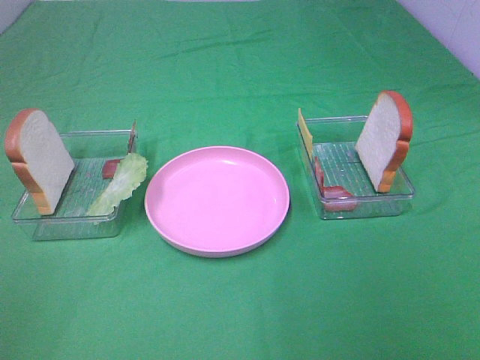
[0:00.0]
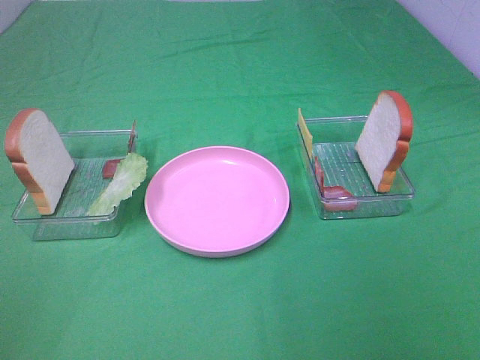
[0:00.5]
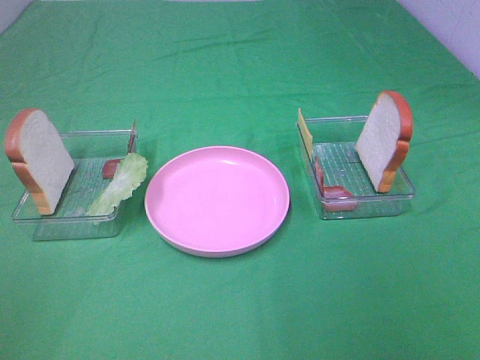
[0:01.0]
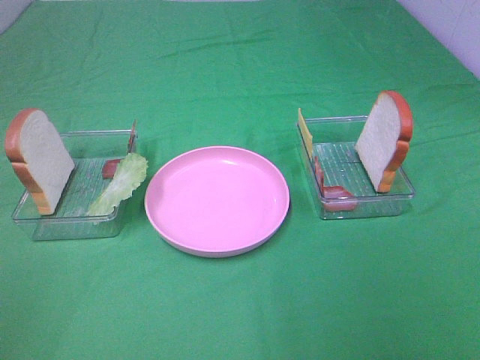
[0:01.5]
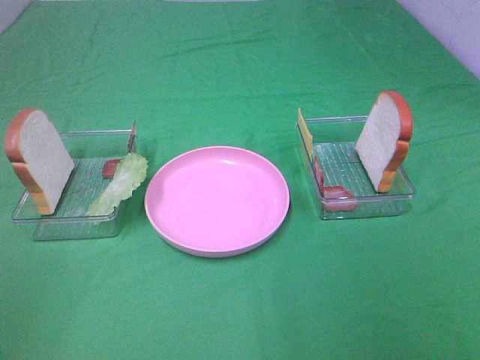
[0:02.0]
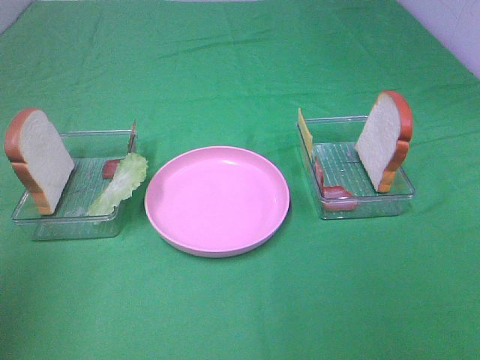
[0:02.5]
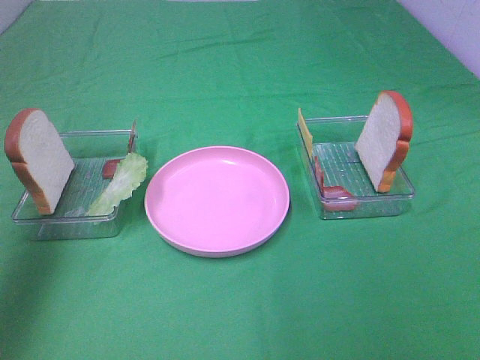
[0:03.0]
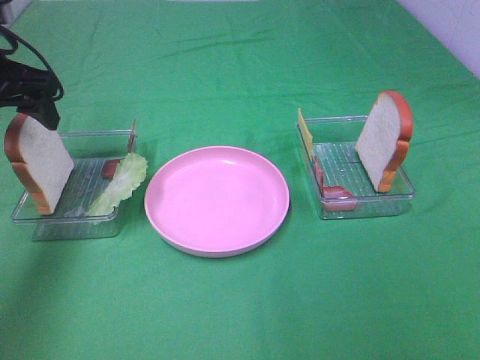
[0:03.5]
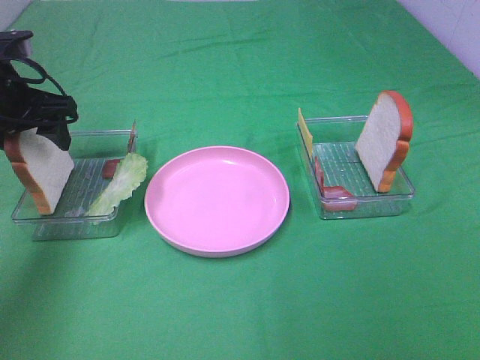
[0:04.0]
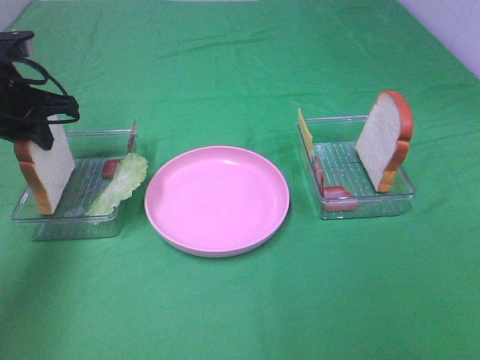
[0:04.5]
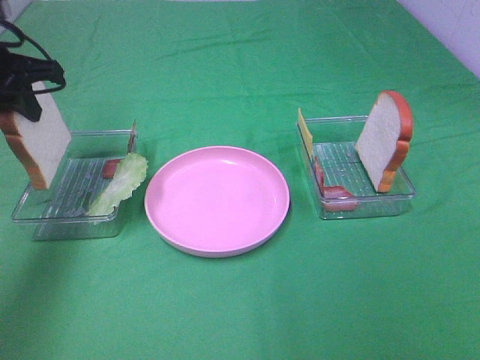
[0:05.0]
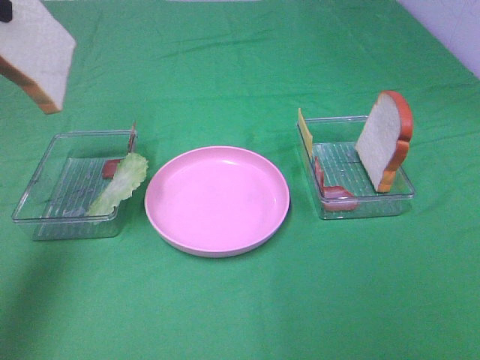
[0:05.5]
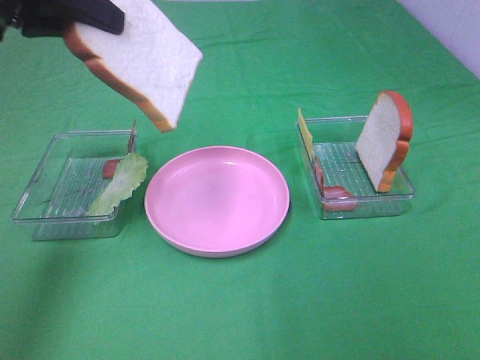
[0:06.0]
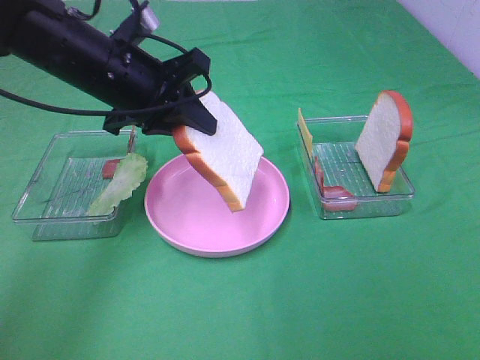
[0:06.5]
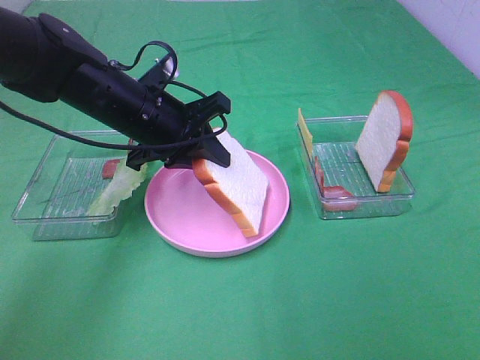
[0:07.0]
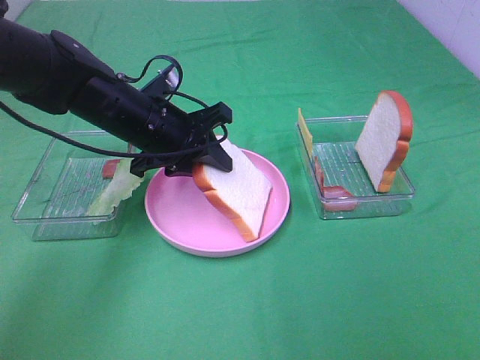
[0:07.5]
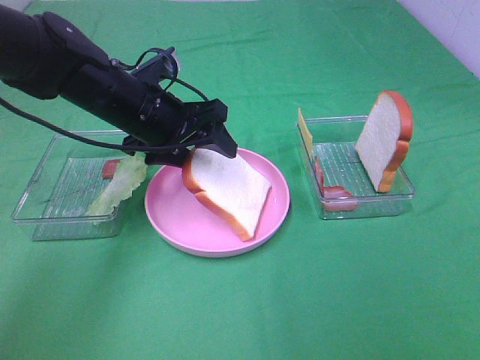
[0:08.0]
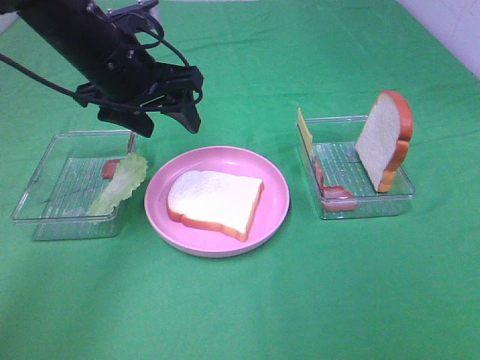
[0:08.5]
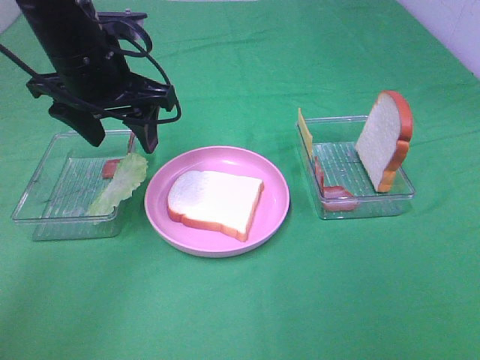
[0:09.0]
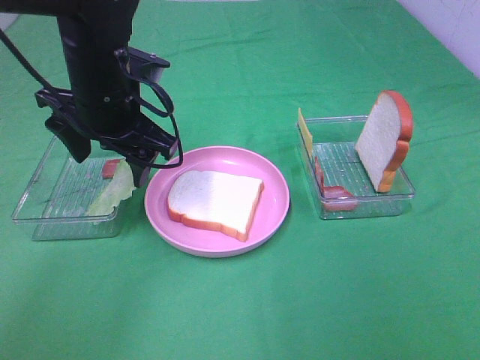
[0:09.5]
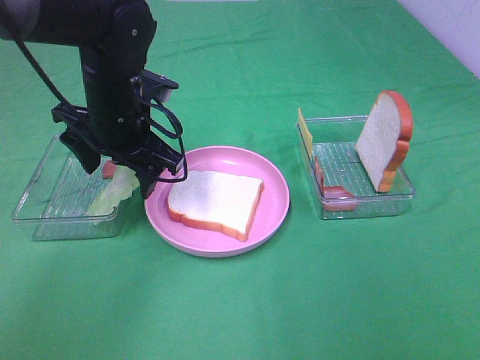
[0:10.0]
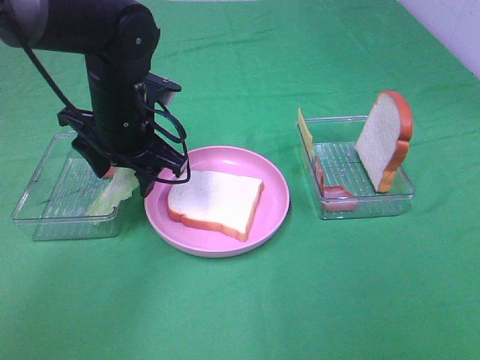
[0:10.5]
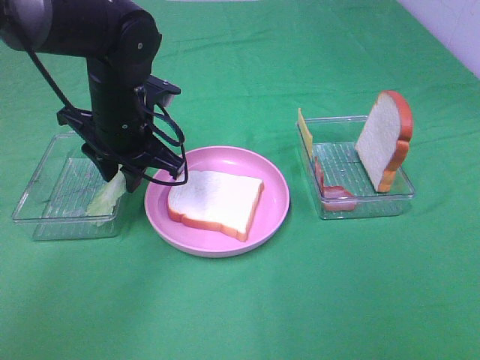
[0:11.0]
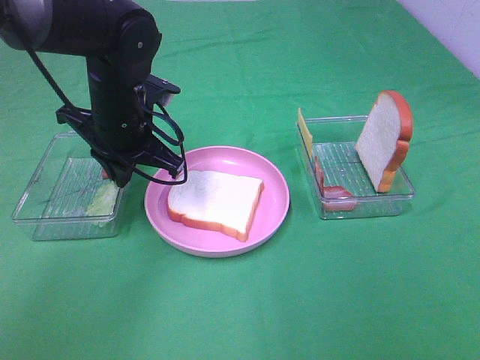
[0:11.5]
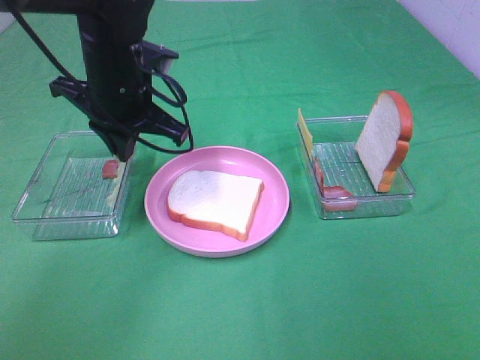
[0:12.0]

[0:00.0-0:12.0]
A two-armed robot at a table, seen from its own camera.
Task of the whole recording: Make sandwiches.
Step, 0:00.0 to 0:04.5: Left hand:grab the bread slice.
Step, 0:05.0 to 0:08.0: Left hand:place the bread slice on the plate.
Step, 0:08.5 to 0:11.5: Left hand:grab the lettuce slice.
0:02.0 to 0:04.0: The left gripper goes some 35 cm forward.
0:04.0 to 0:06.0: The left gripper moves upward, to the right and backward, some 15 cm, and closes up.
0:06.0 to 0:08.0: The left gripper heads downward and to the right, covering approximately 20 cm, and opens up.
0:10.0 to 0:12.0: The left gripper closes its fingers.

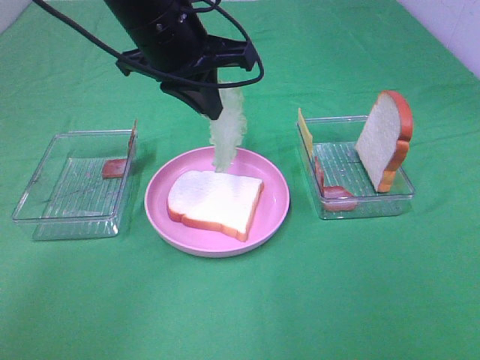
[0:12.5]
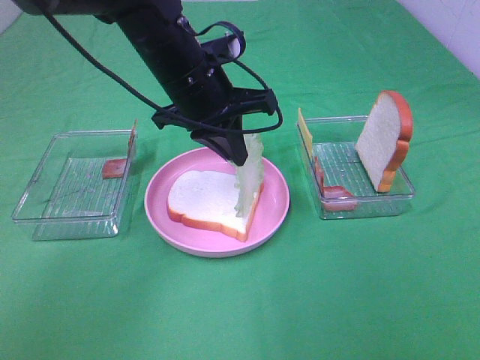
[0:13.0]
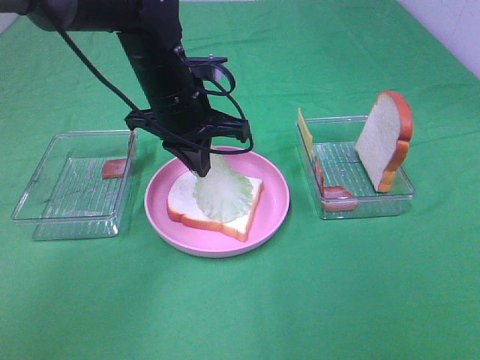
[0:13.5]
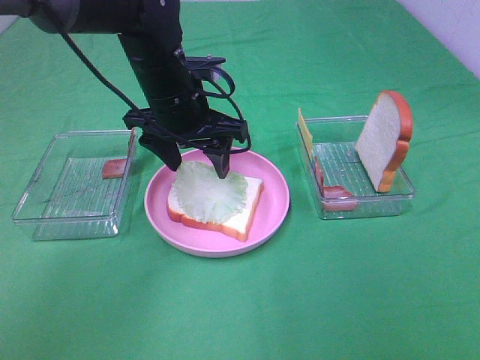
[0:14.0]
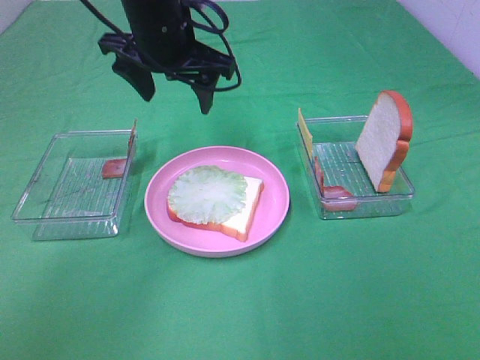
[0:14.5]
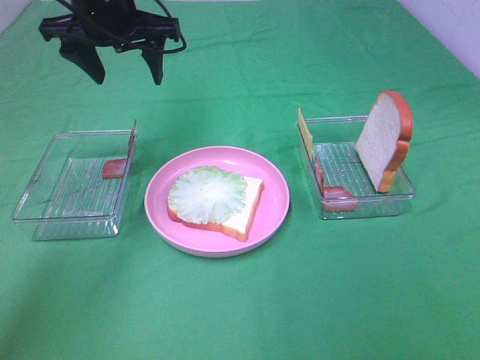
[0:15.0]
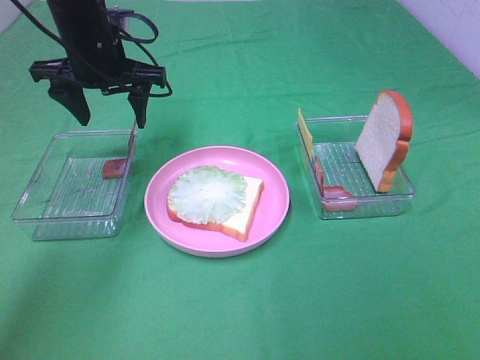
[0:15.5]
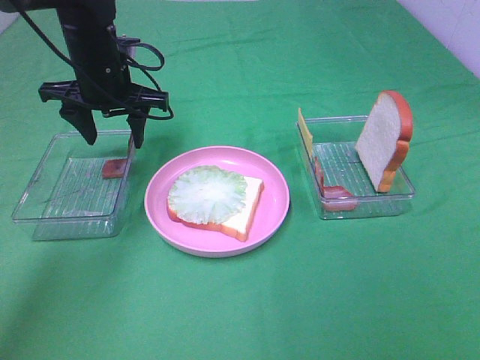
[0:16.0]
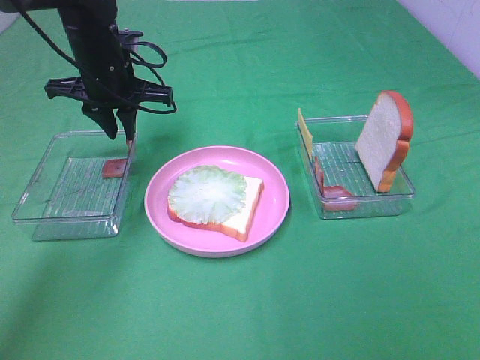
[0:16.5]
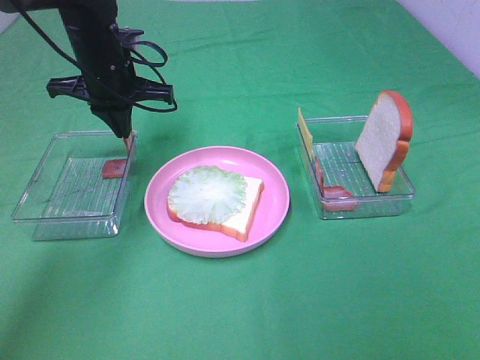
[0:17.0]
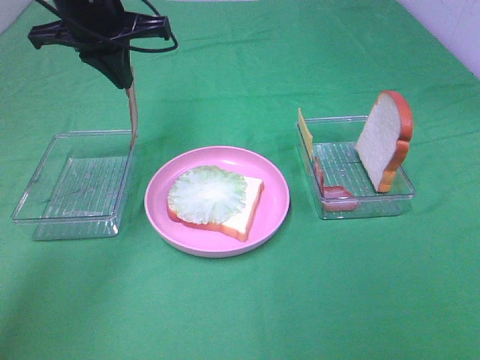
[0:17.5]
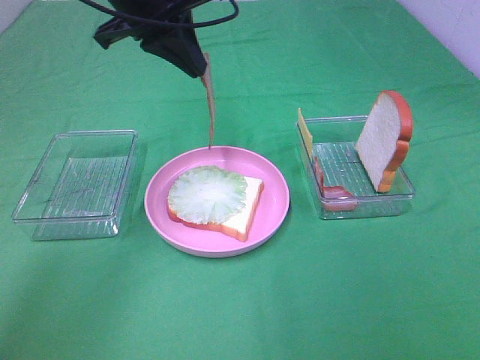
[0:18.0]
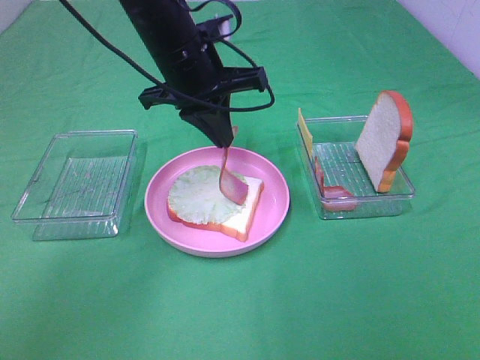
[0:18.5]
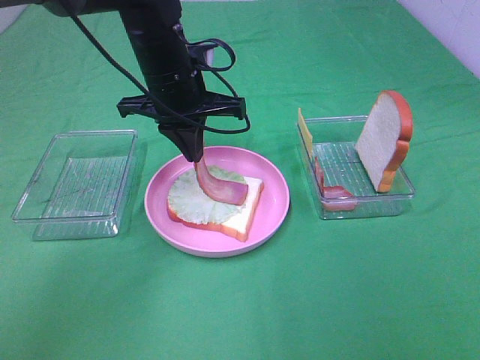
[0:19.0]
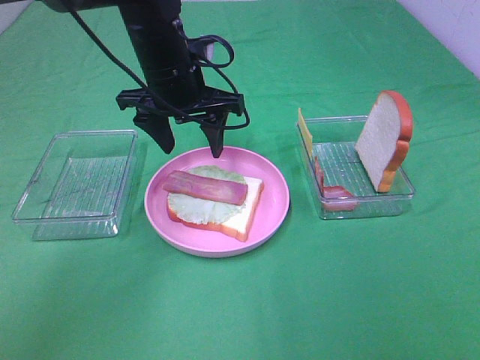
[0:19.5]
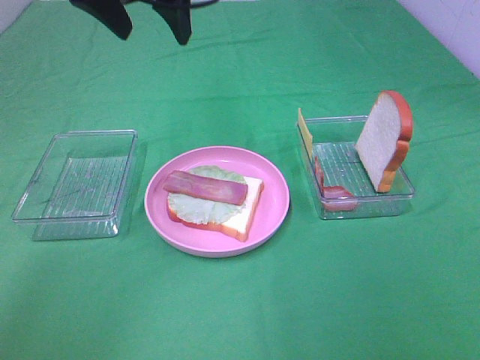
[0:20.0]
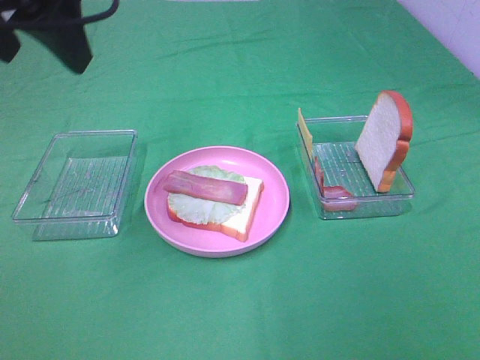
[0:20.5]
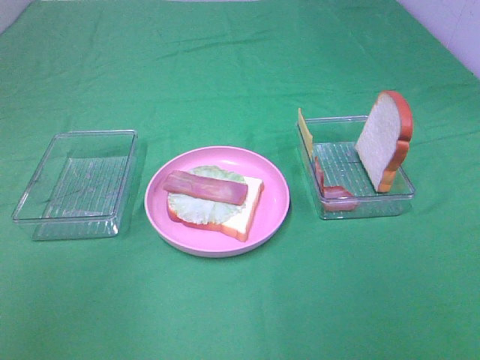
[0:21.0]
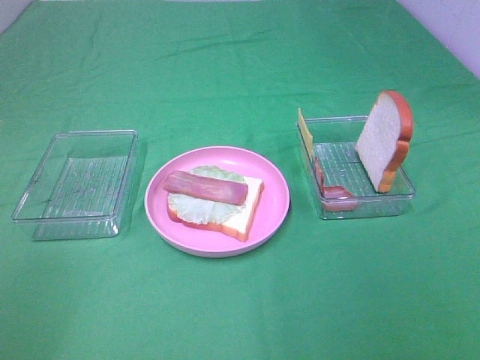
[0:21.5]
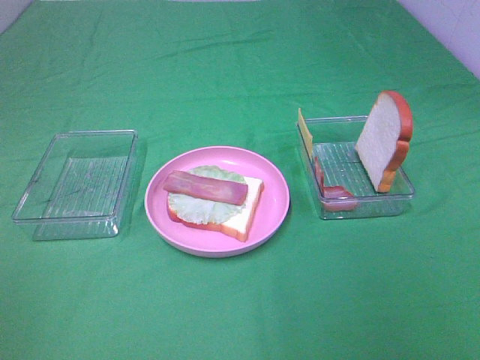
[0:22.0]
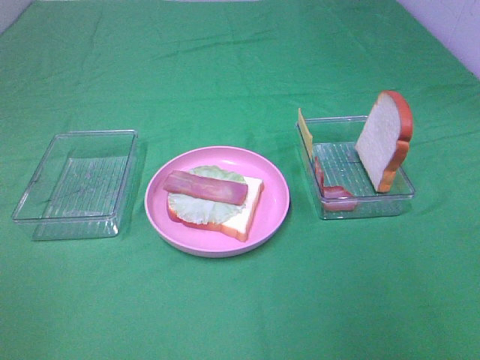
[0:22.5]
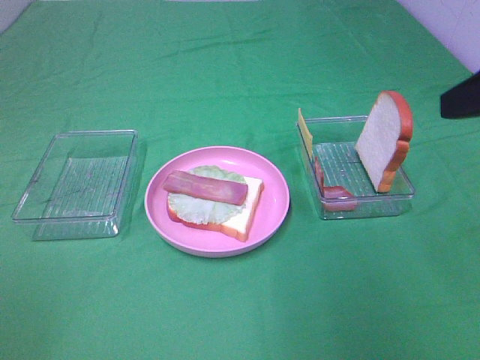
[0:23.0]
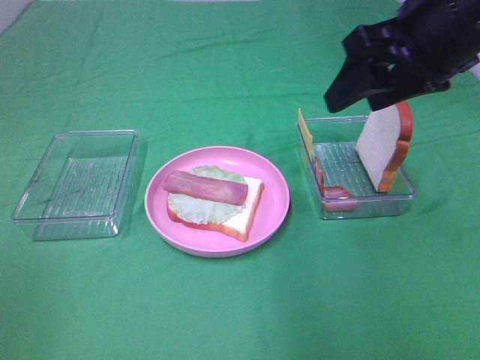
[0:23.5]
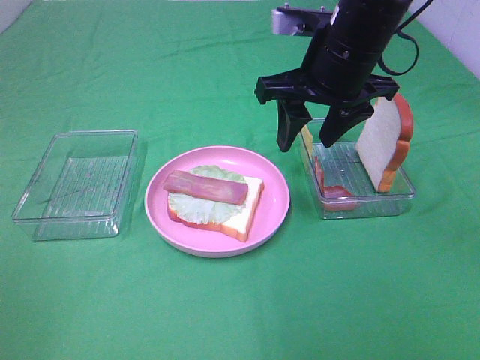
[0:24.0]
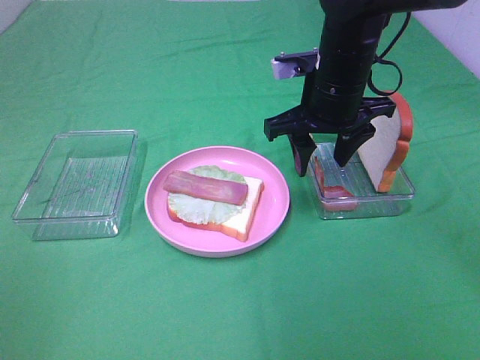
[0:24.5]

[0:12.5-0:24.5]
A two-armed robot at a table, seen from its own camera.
Task of the whole recording: Make sandwiches.
Step, 0:12.5 to 0:14.0: Left hand:place the lettuce slice on the bread slice.
Step, 0:14.5 to 0:17.0: Left hand:grab the bacon.
Step, 0:17.5 to 0:19.0: Left hand:place bacon on lettuce slice.
0:12.5 to 0:14.5: The left gripper moves roughly 10 cm downward and comes back, and opens its fingers.
0:14.5 to 0:16.5: The left gripper moves to the left and downward, roughly 10 cm, and closes.
0:16.5 to 0:18.5: The left gripper travels to the right and backward by some 10 cm, and travels upward and back again, approximately 10 cm each way.
0:18.5 to 0:20.5: The left gripper heads upward, backward and to the left, covering some 25 cm, and opens.
0:20.5 to 0:22.5: The left gripper goes some 30 cm backward and to the left.
0:22.5 to 0:24.5: The right gripper is displaced forward, to the left and downward by approximately 35 cm.

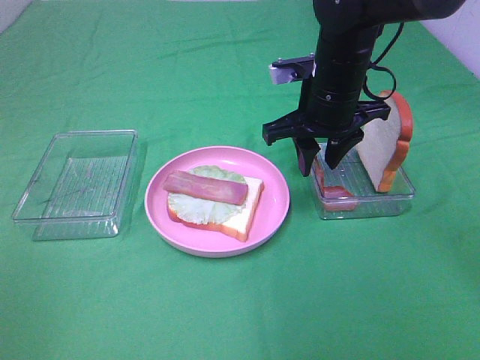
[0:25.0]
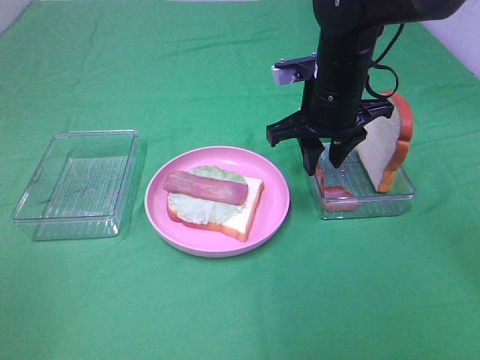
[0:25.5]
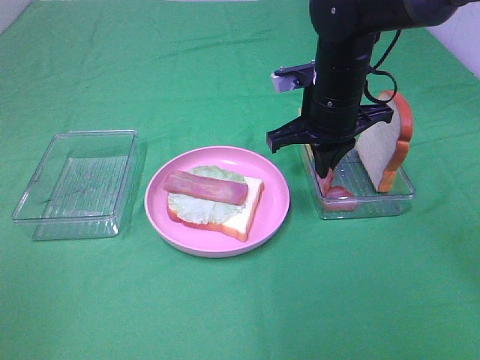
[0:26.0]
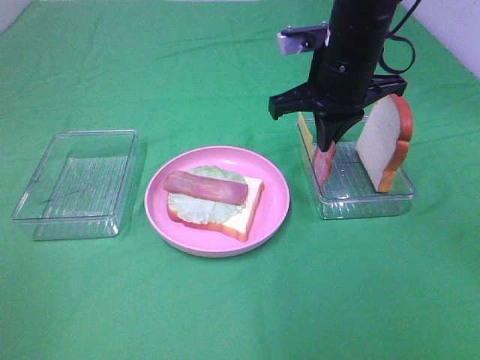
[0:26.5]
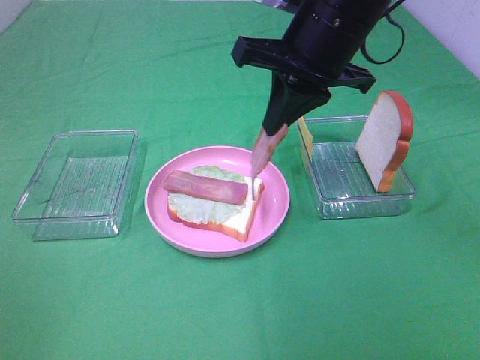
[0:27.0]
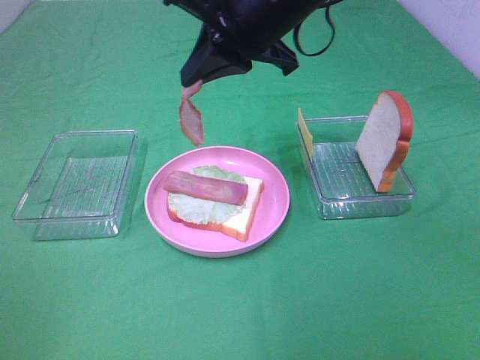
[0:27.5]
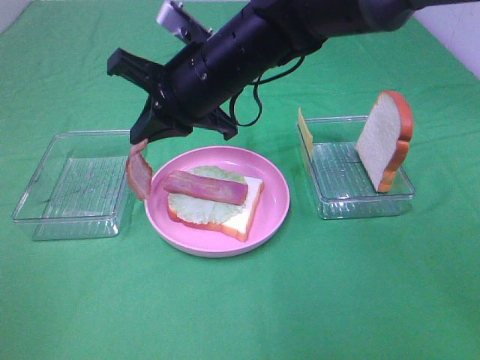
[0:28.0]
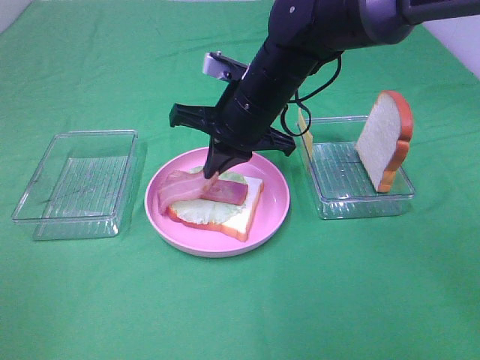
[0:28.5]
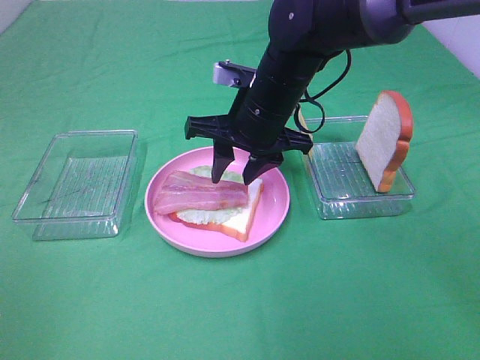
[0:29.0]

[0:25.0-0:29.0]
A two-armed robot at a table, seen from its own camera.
Task of the whole recording: Make sandwiches.
Step, 0:26.5 to 0:29.0: Right hand:place bacon on bacon.
0:25.0 to 0:27.0: The right gripper heads upward, covering approximately 10 cm, and closes.
0:27.0 to 0:29.0: The right gripper travels downward and to the left by roughly 10 cm, and opens.
